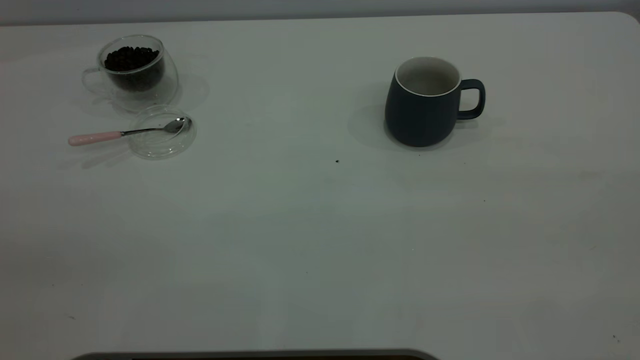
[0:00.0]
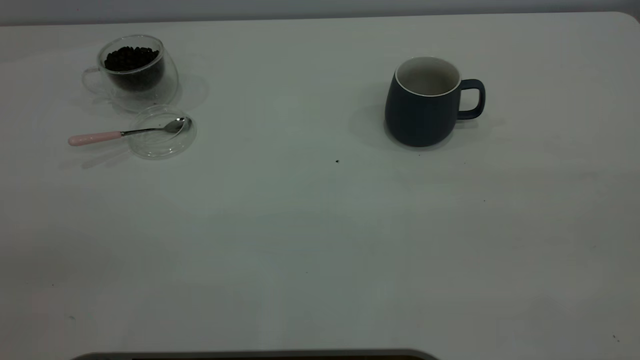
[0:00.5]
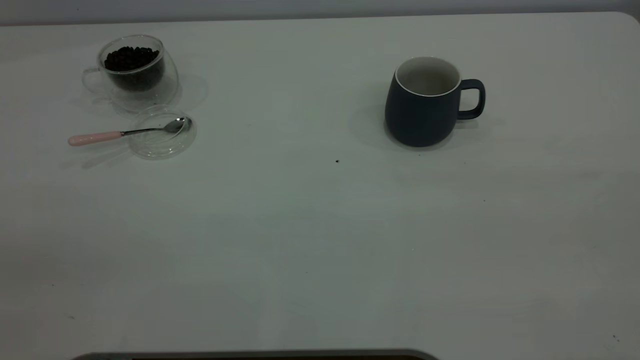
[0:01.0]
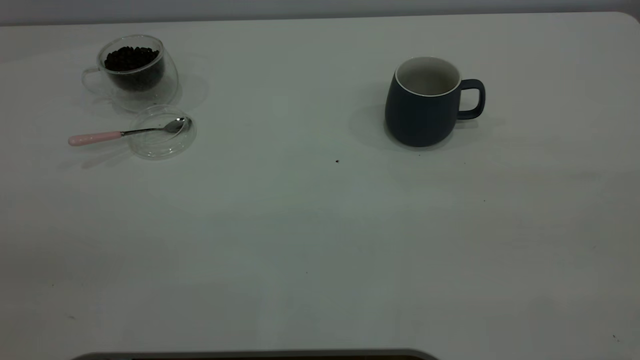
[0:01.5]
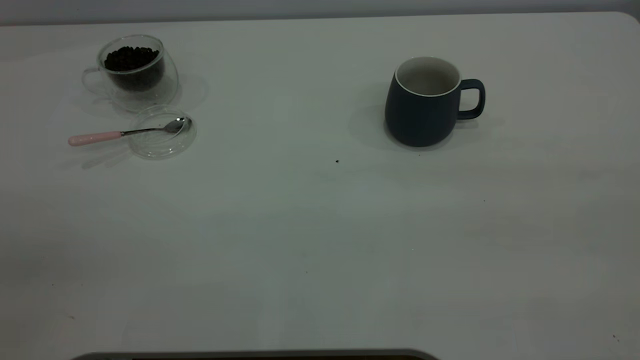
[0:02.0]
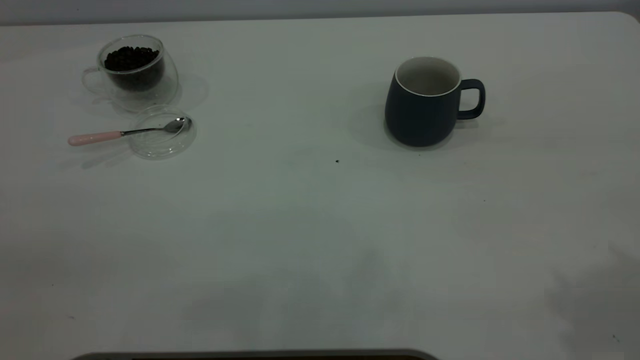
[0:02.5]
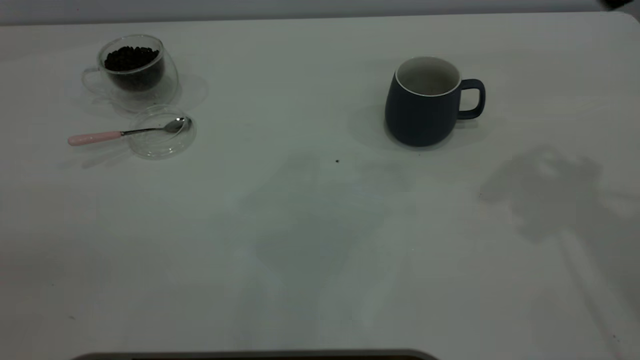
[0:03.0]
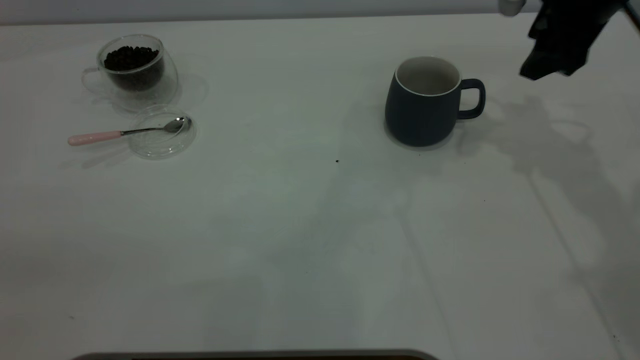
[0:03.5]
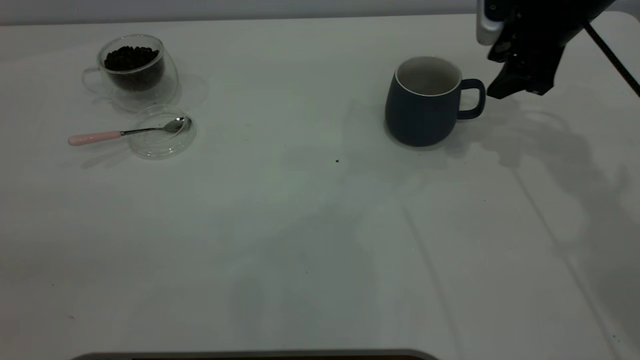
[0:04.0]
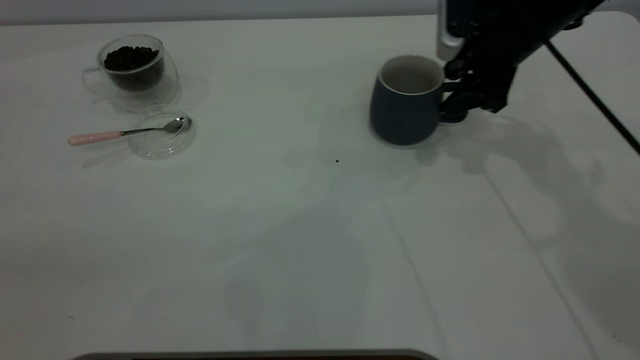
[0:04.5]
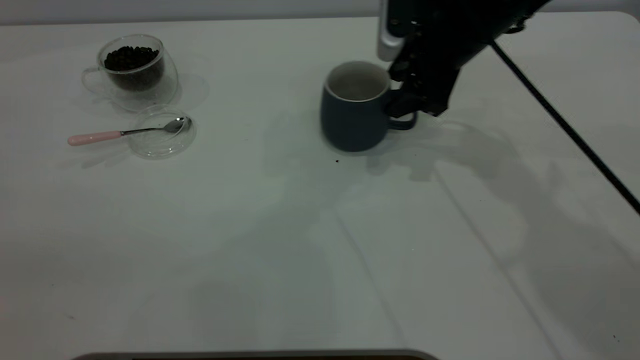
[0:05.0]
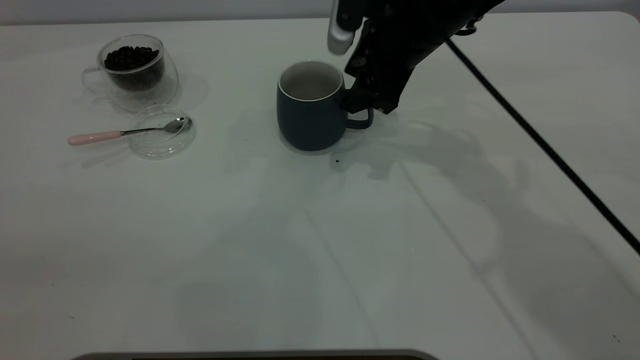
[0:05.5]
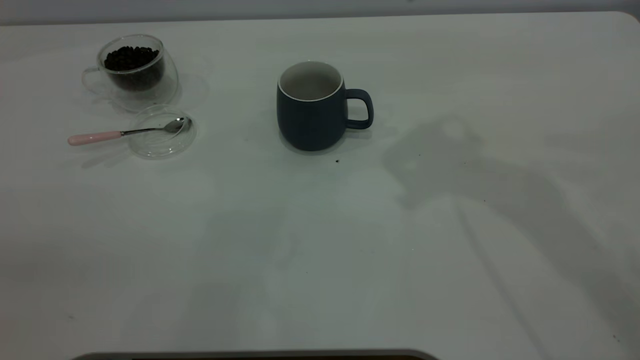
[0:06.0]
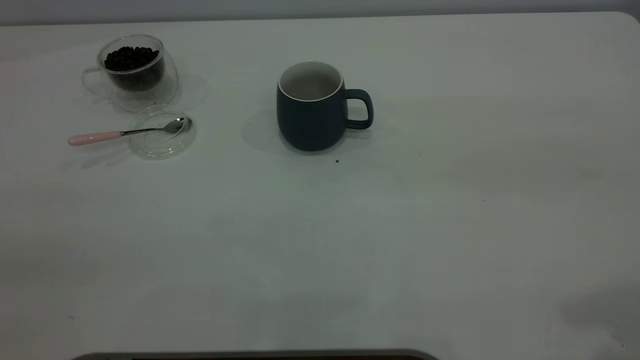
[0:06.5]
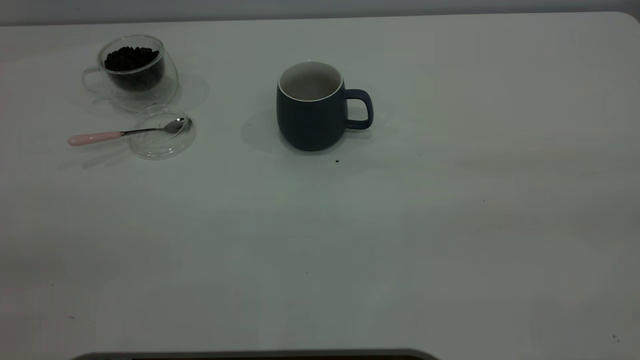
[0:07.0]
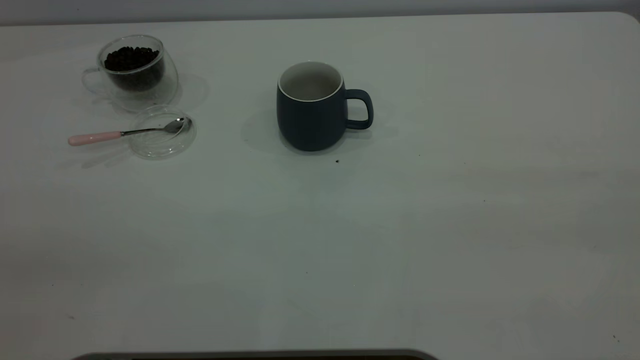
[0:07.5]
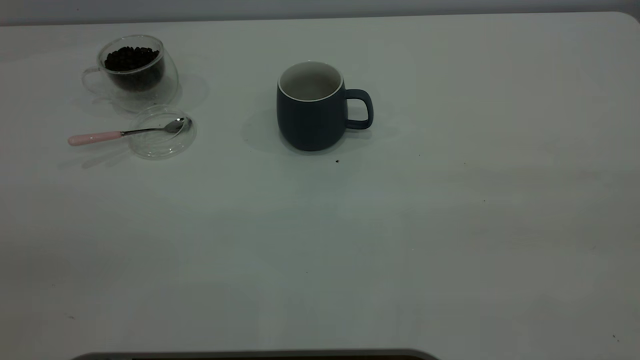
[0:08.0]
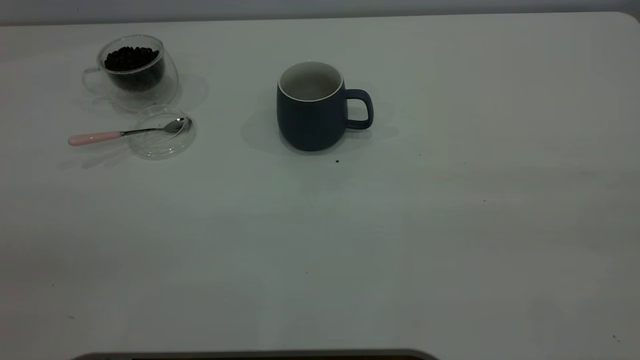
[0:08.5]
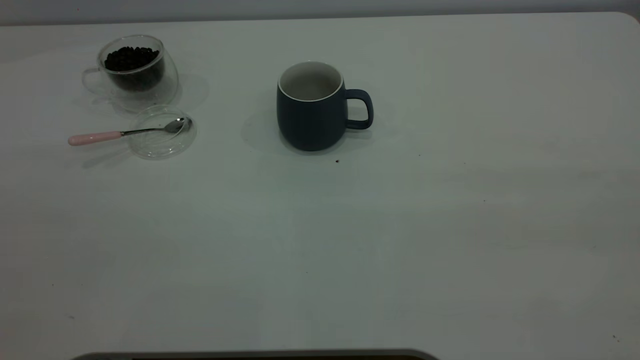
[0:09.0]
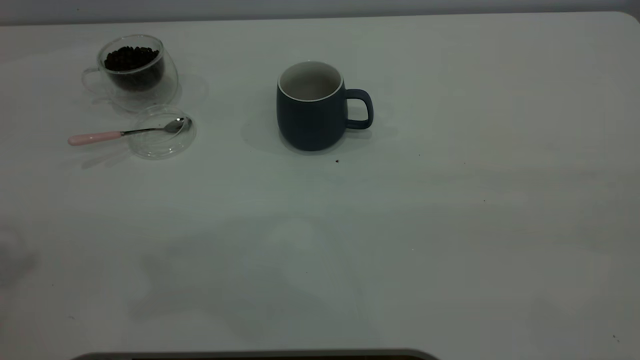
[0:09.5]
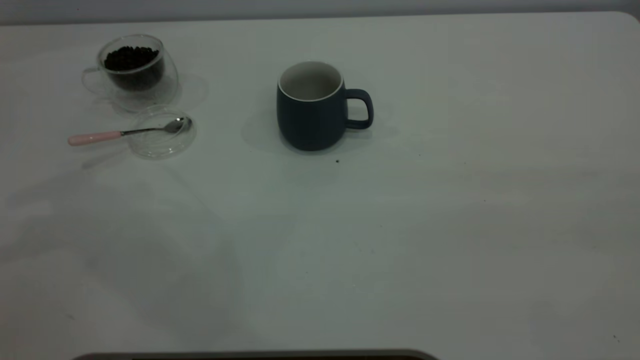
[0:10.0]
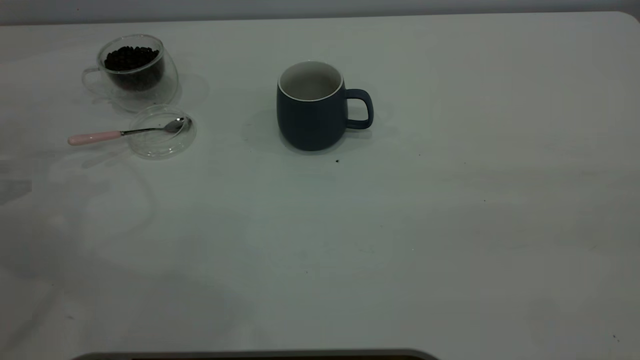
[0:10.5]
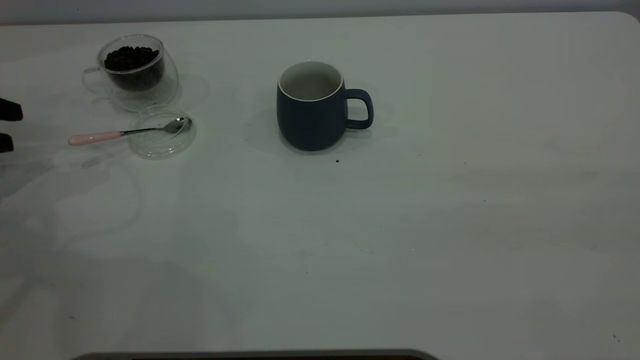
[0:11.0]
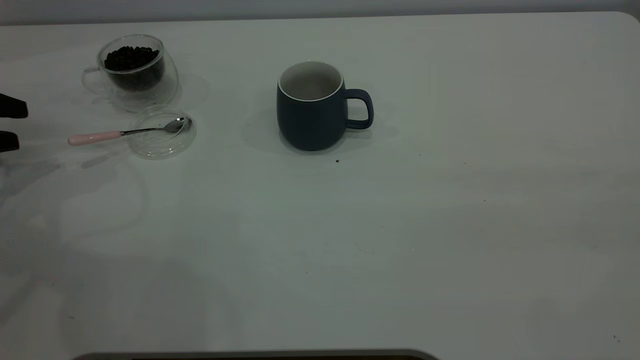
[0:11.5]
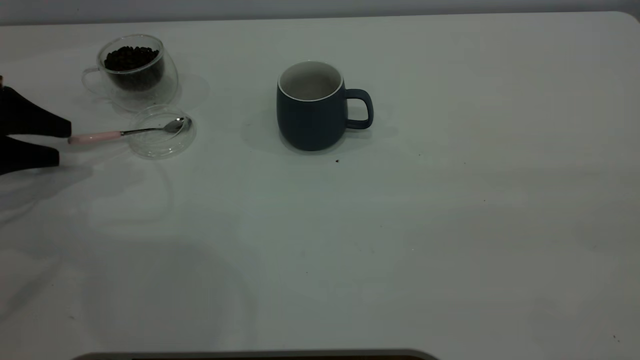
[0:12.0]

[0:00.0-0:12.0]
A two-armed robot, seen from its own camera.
Task of the whole recording: the right gripper place the grey cup in the center of the table, the left gripper take the pink spoon from the cup lid and scoop out the coffee beans from the coffee cup and put them into the grey cup, the left gripper put the spoon back into the cup lid.
Step, 0:00.0 to 0:05.5: Move the cup to the center of view.
0:02.0 to 0:04.0: The right gripper shifts some 50 cm forward and downward, and opens, then closes once more.
0:04.0 to 0:06.0: The right gripper goes approximately 20 cm upward, backward and to the left.
0:10.0 to 0:12.0: The left gripper travels downward by roughly 20 cm.

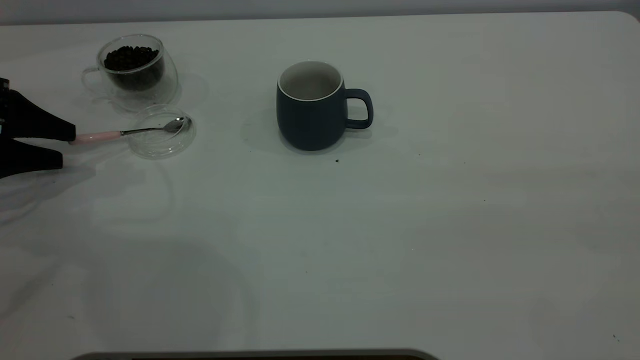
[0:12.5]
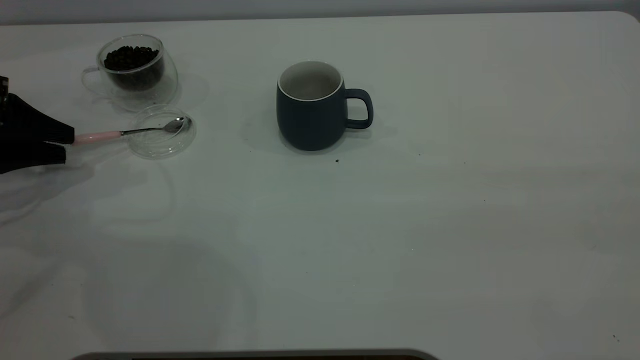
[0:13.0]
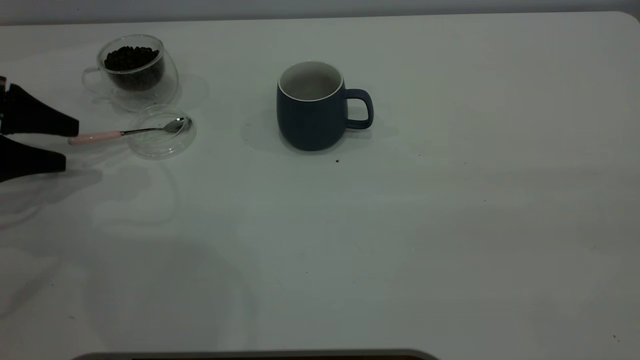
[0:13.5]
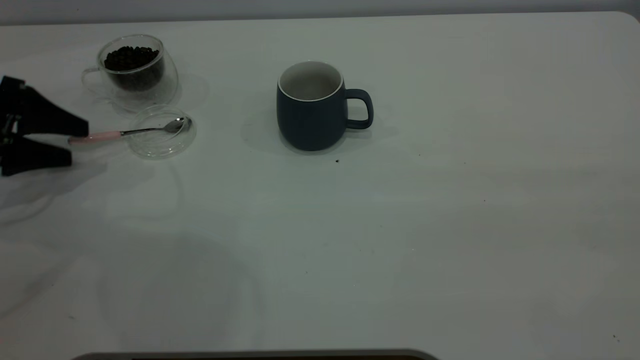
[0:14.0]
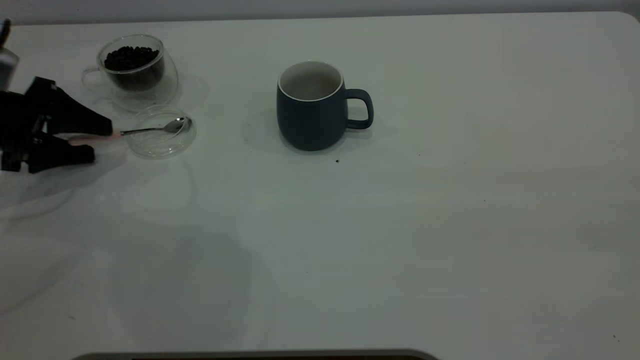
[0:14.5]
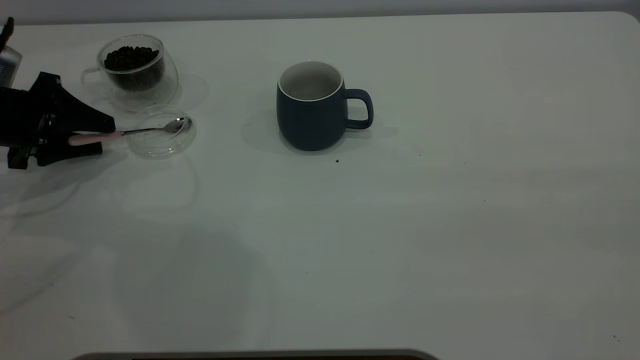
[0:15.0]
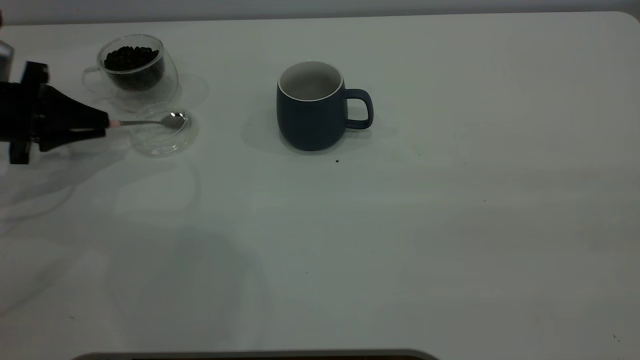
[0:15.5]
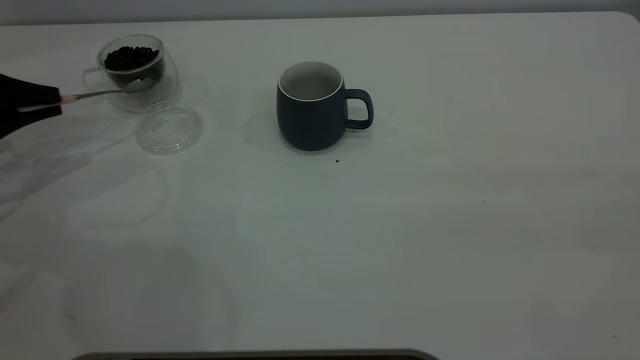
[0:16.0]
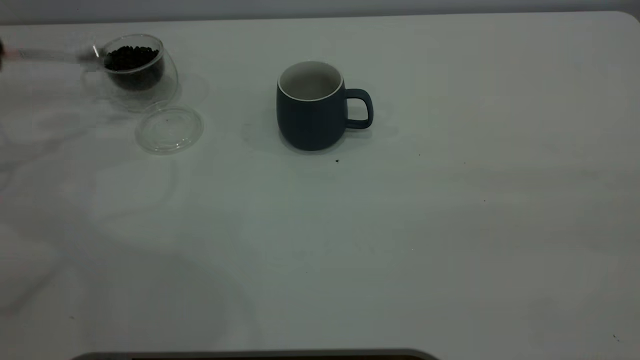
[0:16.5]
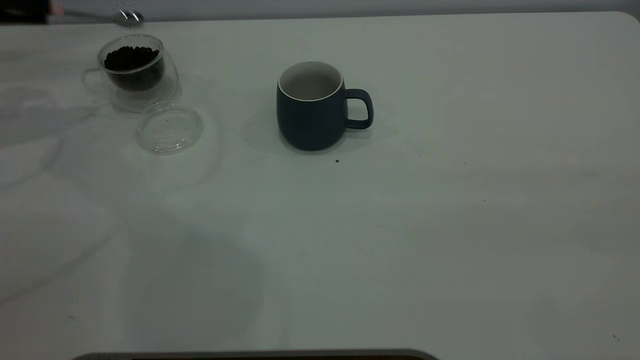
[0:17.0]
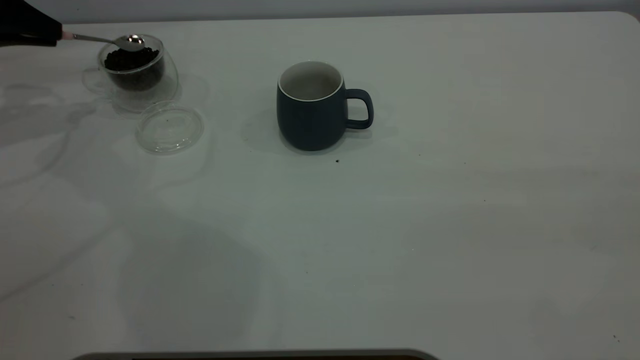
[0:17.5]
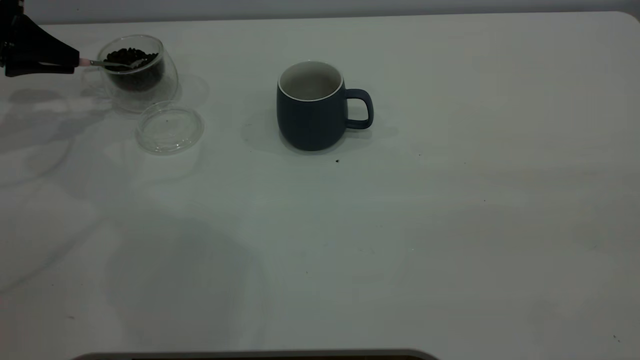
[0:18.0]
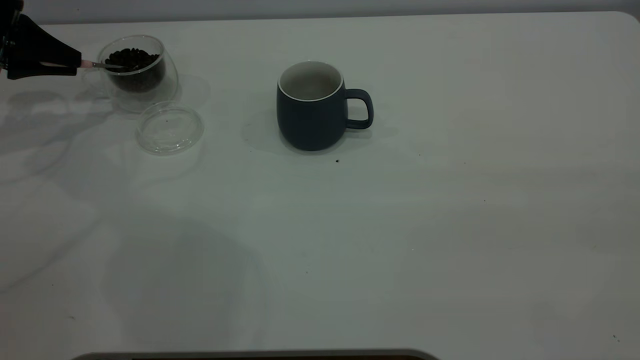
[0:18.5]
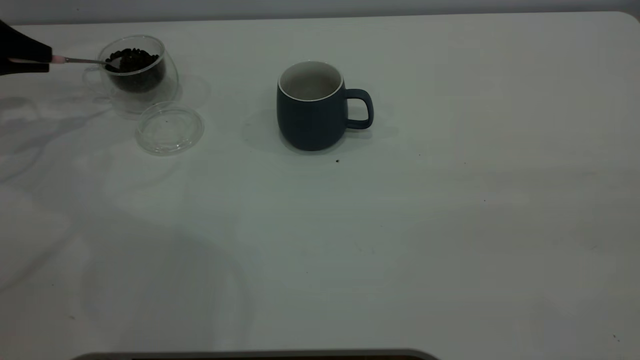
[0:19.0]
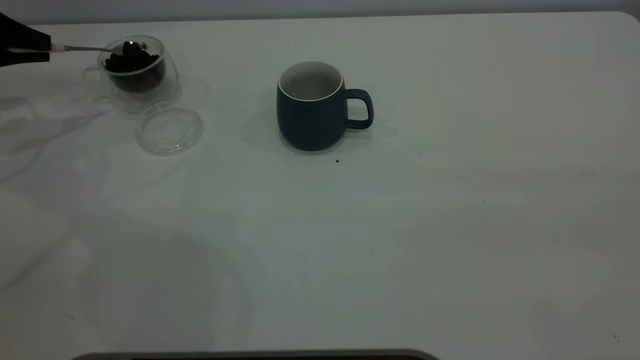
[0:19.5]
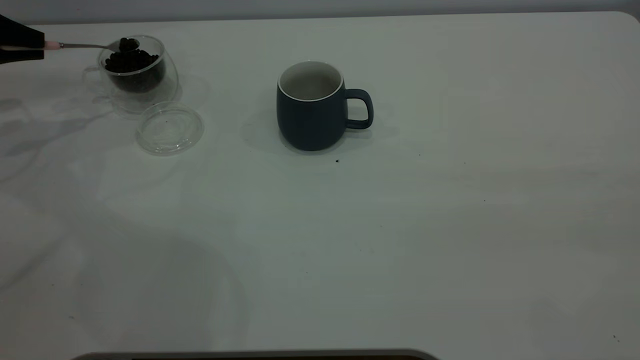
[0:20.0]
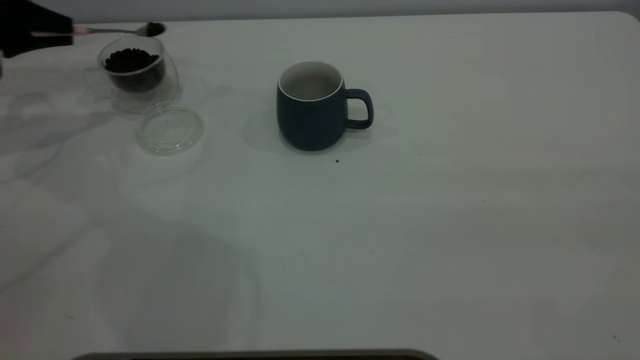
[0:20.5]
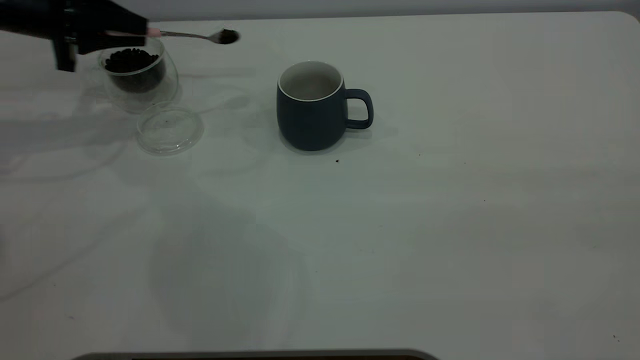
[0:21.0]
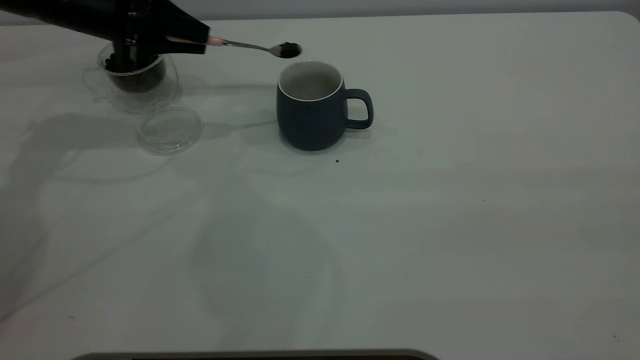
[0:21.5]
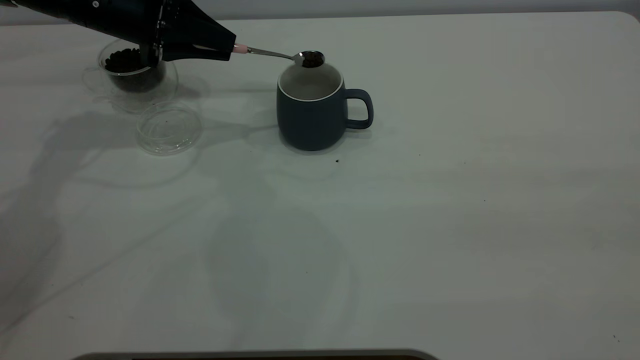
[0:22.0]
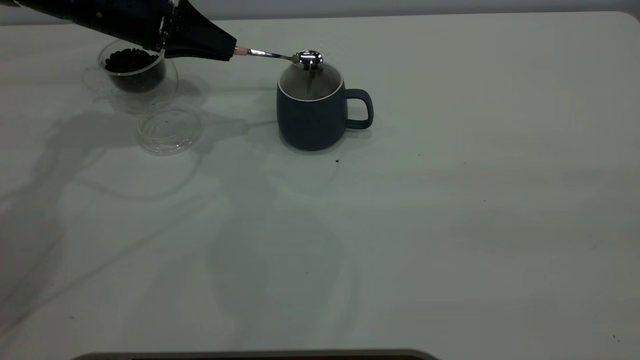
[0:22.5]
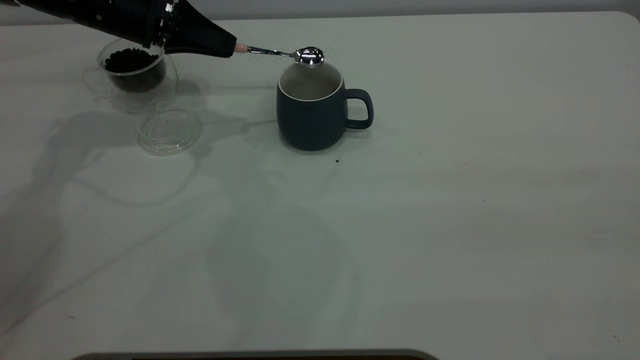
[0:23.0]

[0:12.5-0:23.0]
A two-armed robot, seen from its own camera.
Task of the whole recording: the right gripper place the grey cup in the center of the table, the left gripper take the pink spoon from the cup lid and scoop out the coffee beans from the coffee cup and put them into the grey cup, the left gripper put the spoon back into the cup lid.
Step, 0:12.5 to 0:15.5: Pick up the spoon.
0:12.5 to 0:14.5: The grippers stay close to where they were, moving slightly.
0:14.5 to 0:16.5: The left gripper is displaced upward and to the left by roughly 15 cm, and closes up.
0:16.5 to 0:19.0: The left gripper shifts by approximately 5 cm.
0:19.0 to 0:21.0: The left gripper heads to the right, covering roughly 10 cm.
0:21.0 to 0:23.0: The left gripper goes some 10 cm to the right.
